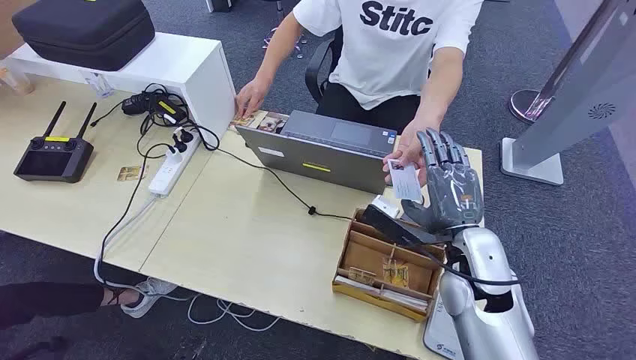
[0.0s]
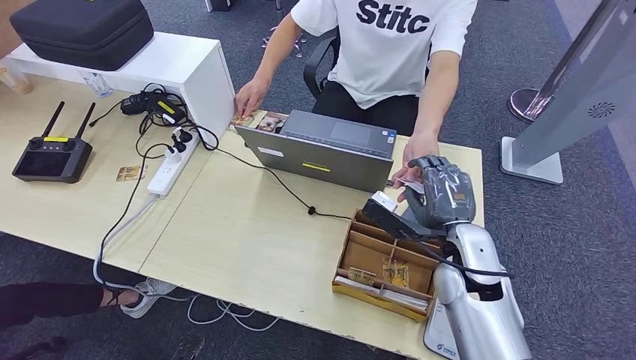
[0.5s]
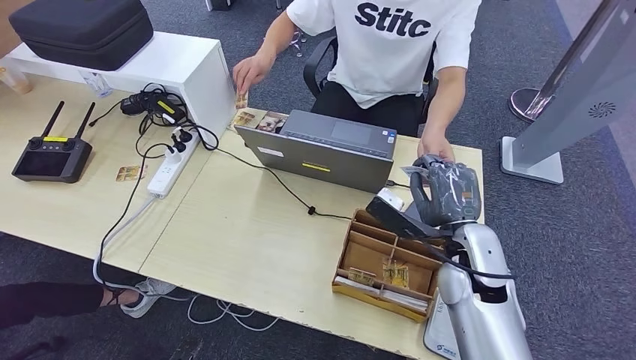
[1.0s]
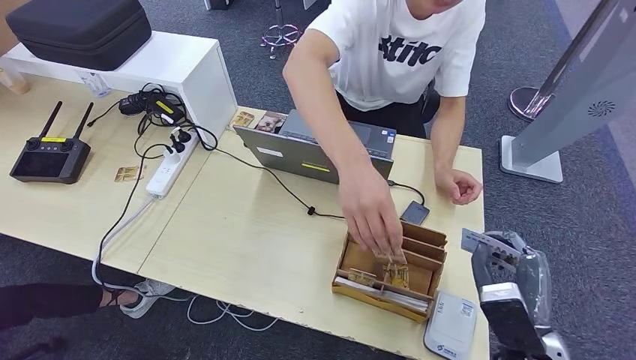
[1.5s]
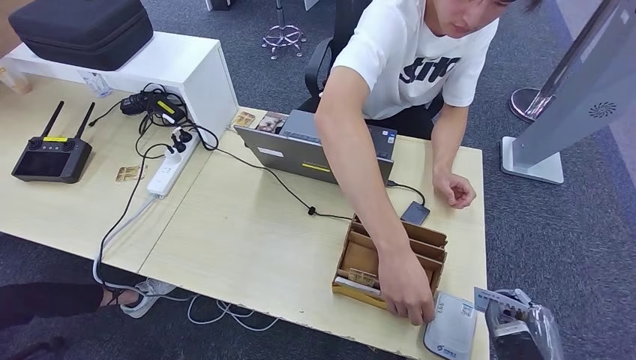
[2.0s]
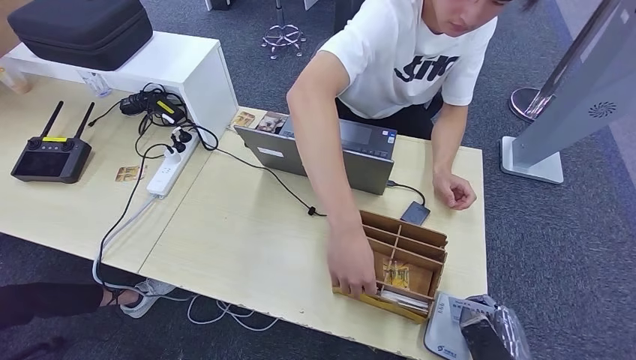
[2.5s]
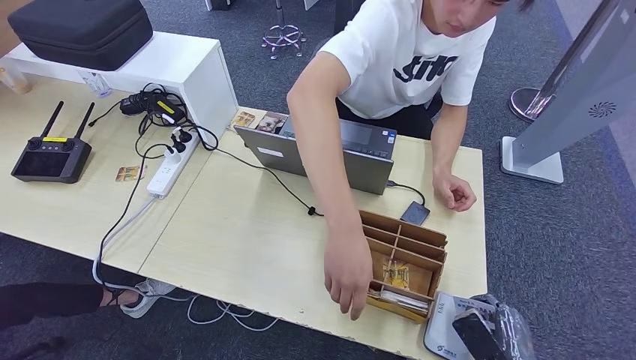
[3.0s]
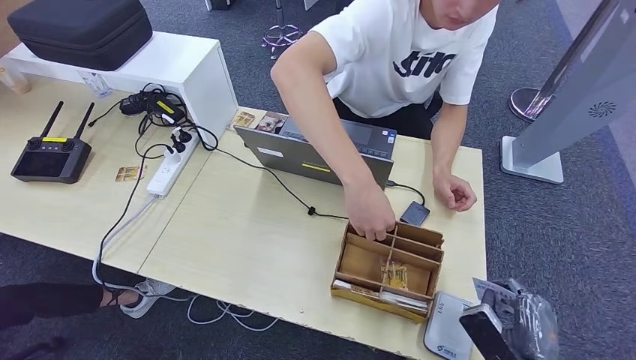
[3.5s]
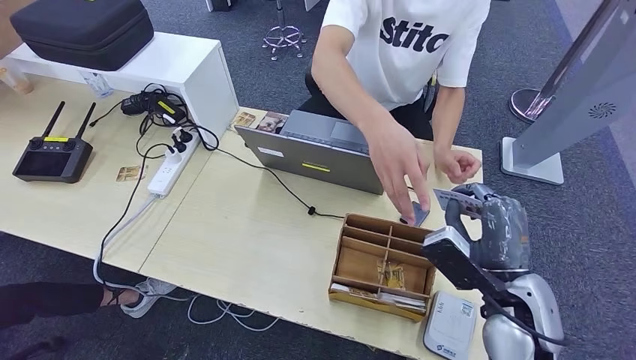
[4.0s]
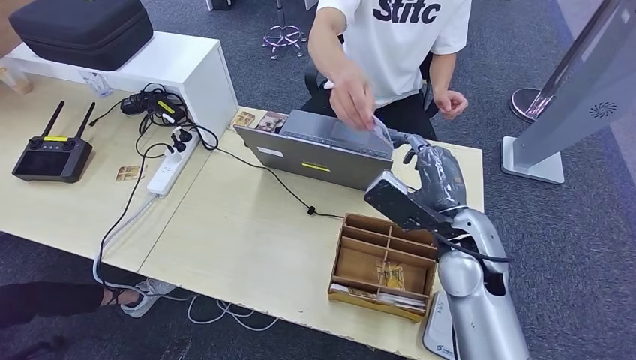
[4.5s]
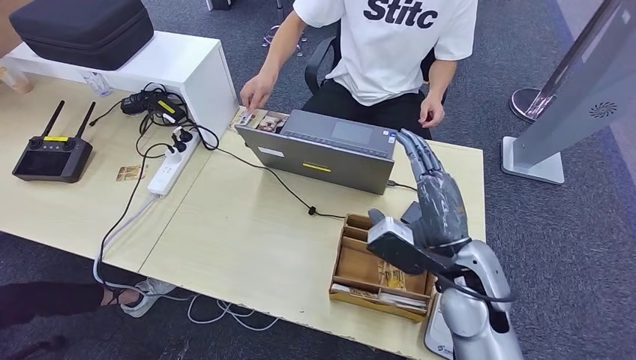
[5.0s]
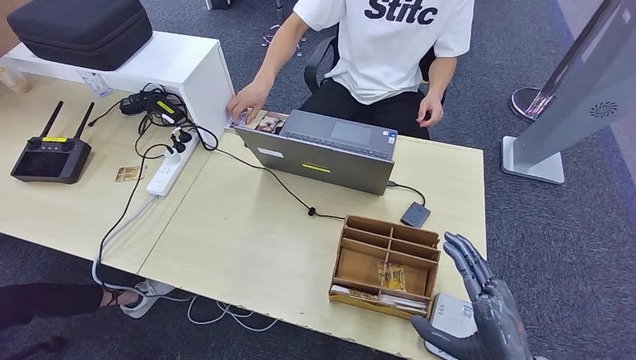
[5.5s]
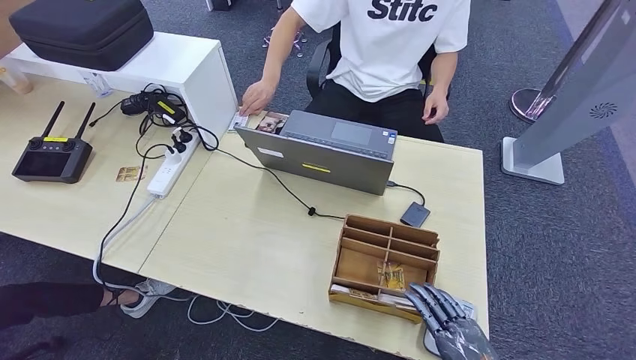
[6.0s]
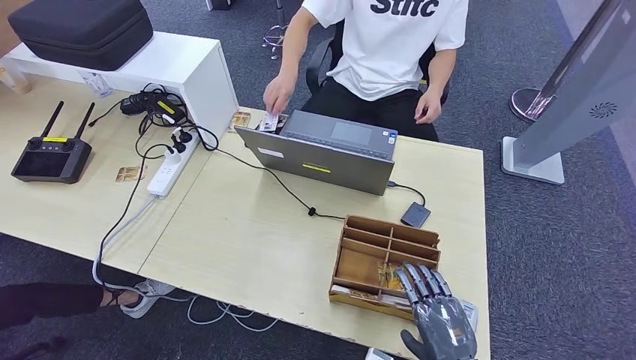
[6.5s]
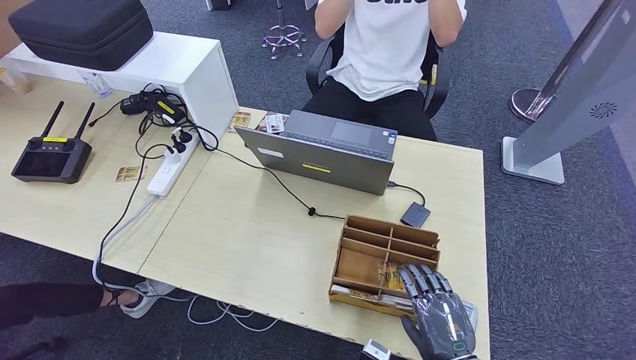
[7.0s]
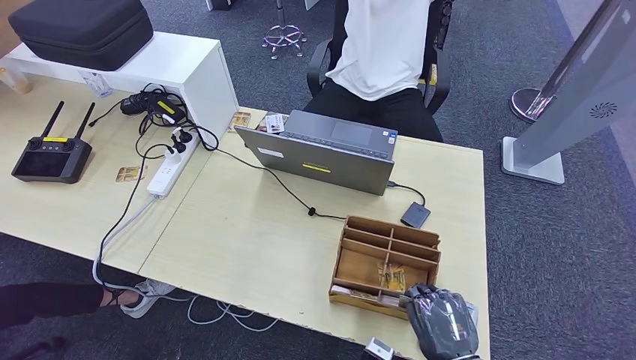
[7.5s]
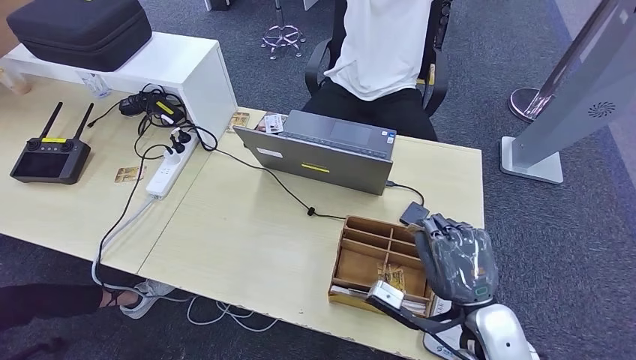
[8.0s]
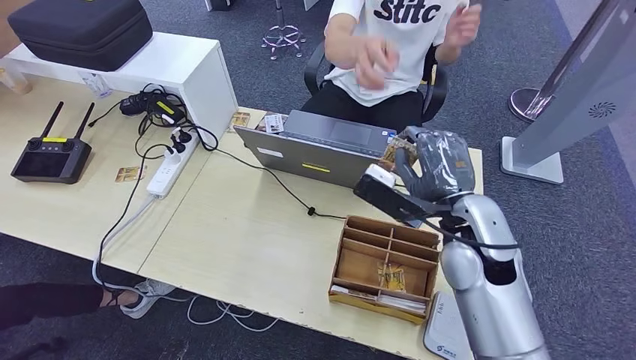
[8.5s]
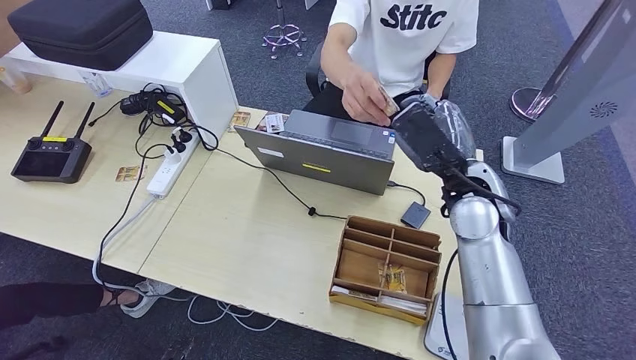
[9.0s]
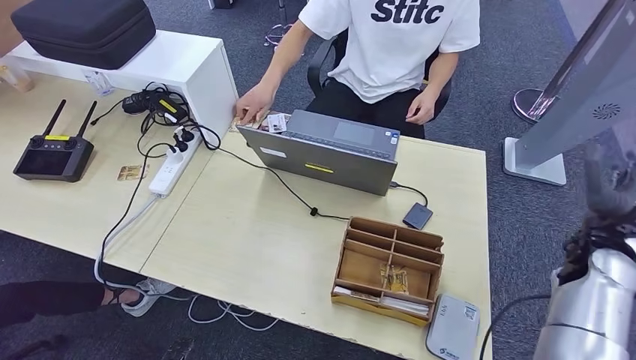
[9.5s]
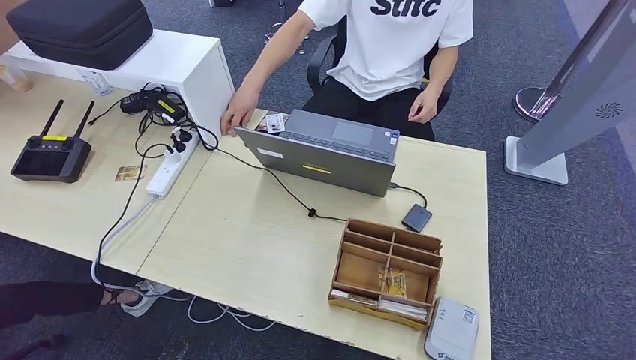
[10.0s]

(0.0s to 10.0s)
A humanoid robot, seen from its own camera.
Step, 0.0s - 1.5s: Take the ID card from the person's hand.
Step, 2.0s - 3.5s: Place the ID card on the card reader.
Step, 4.5s - 5.5s: Hand the ID card to the person.
Step, 7.5s - 8.0s: Pick up the room key from the key card box.
Step, 8.5s - 10.0s: Hand the room key to the person.
2.0s - 4.0s: The right hand moves upward, forward and to the left, some 20 cm.
4.0s - 6.0s: The right hand goes about 15 cm backward and downward.
6.0s - 8.0s: The right hand moves forward, to the left and upward, some 15 cm.
8.0s - 10.0s: The right hand shifts approximately 40 cm downward, to the right and backward.
